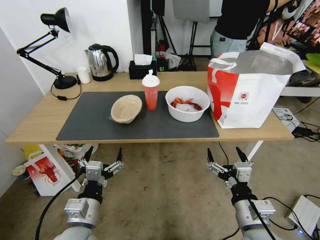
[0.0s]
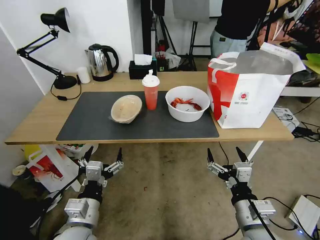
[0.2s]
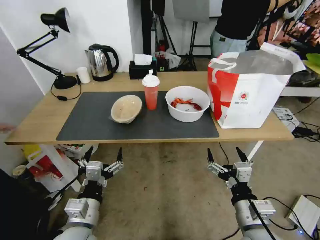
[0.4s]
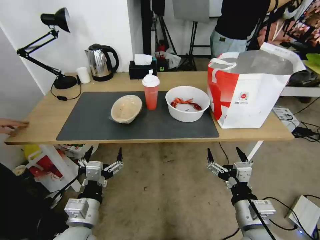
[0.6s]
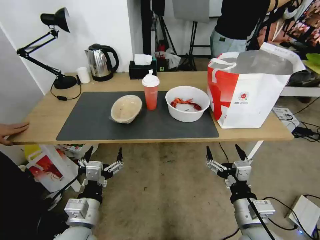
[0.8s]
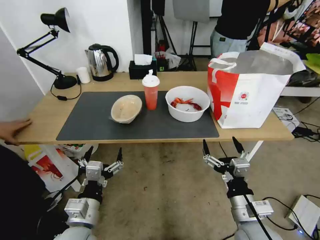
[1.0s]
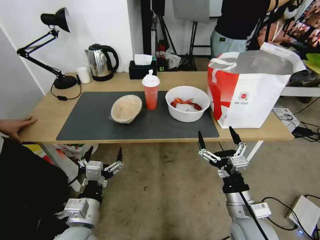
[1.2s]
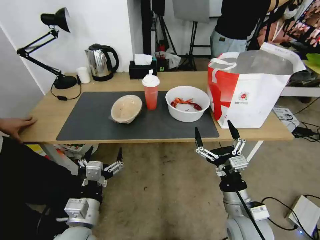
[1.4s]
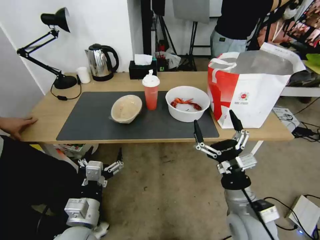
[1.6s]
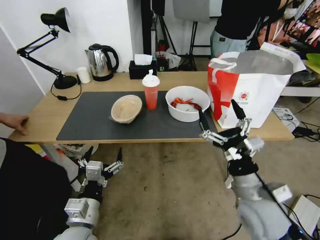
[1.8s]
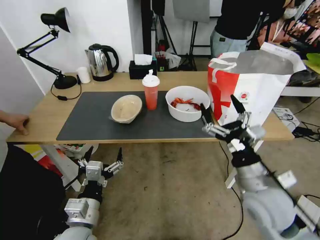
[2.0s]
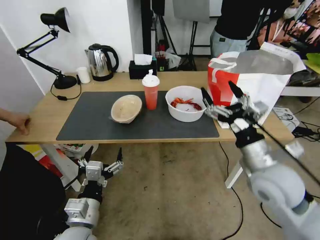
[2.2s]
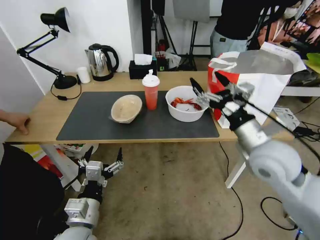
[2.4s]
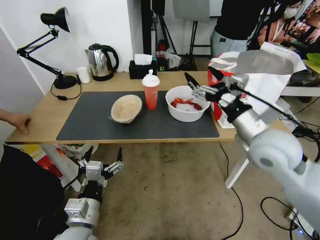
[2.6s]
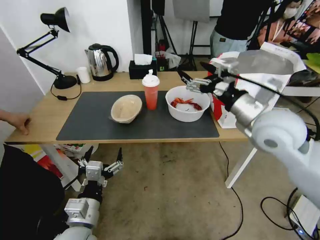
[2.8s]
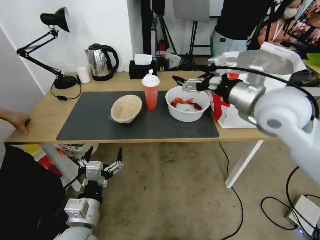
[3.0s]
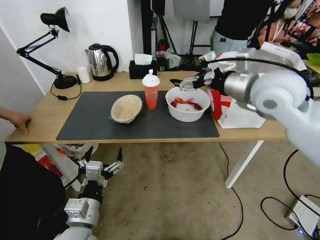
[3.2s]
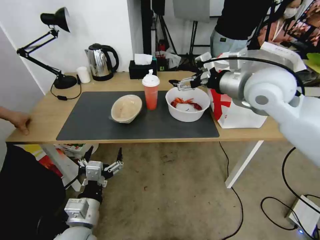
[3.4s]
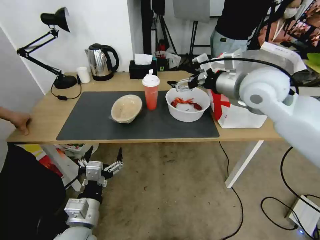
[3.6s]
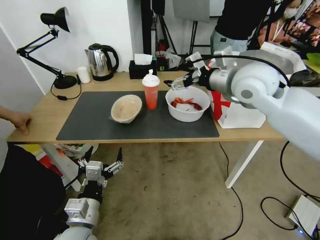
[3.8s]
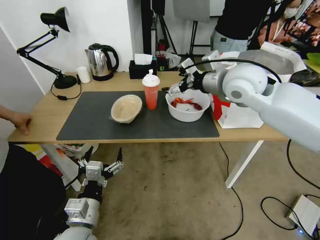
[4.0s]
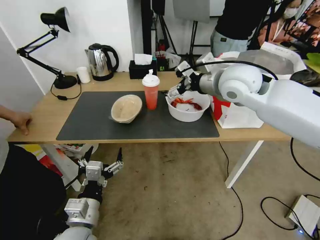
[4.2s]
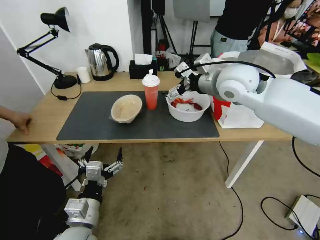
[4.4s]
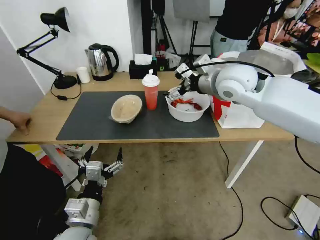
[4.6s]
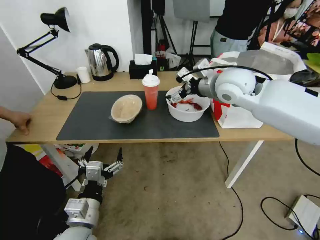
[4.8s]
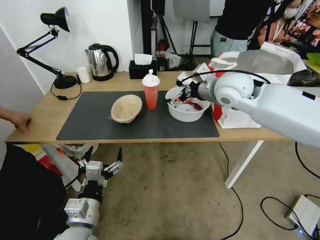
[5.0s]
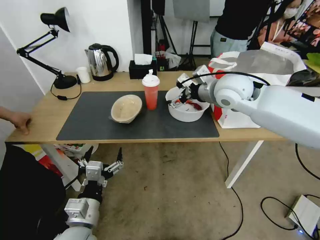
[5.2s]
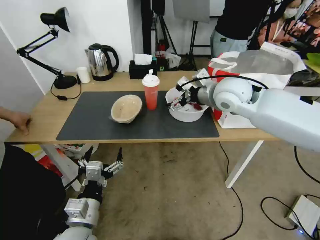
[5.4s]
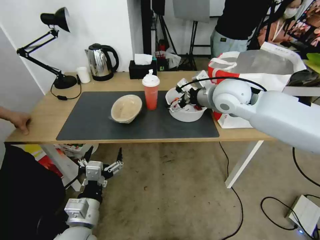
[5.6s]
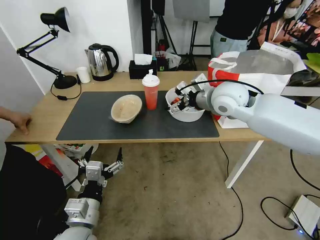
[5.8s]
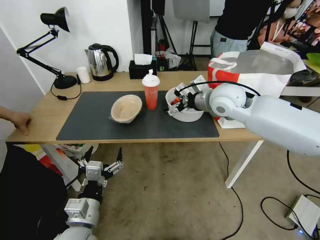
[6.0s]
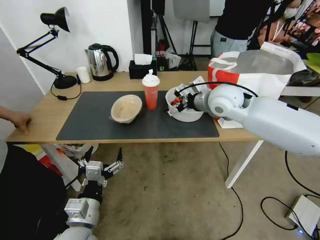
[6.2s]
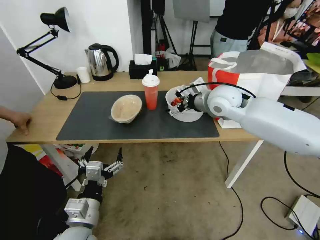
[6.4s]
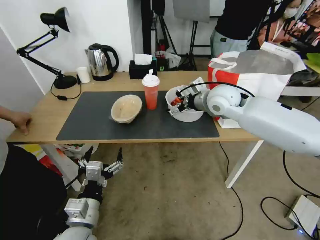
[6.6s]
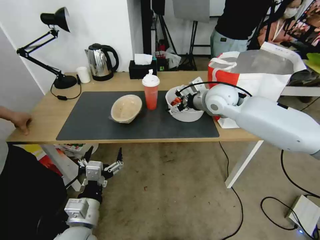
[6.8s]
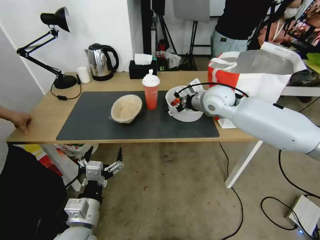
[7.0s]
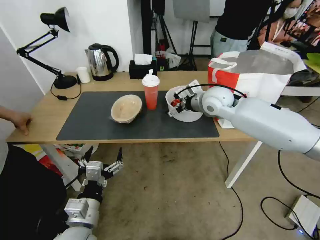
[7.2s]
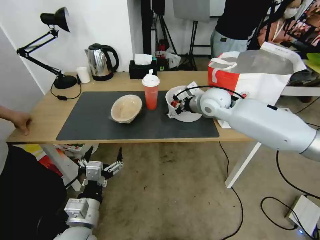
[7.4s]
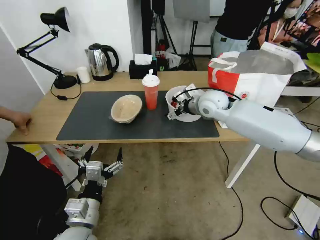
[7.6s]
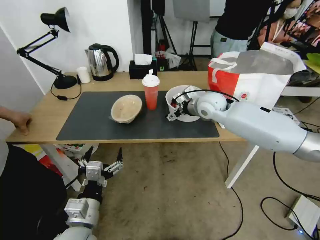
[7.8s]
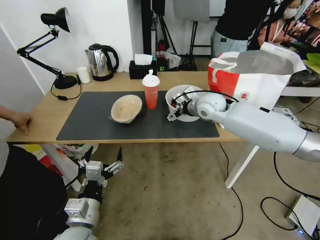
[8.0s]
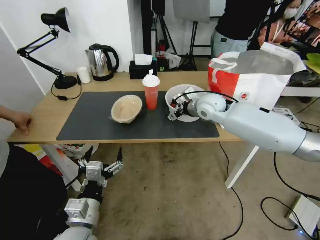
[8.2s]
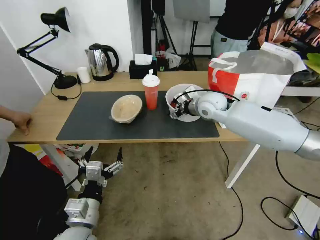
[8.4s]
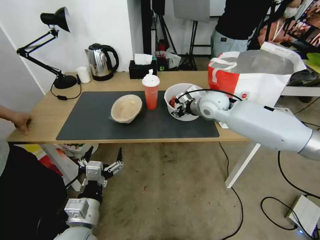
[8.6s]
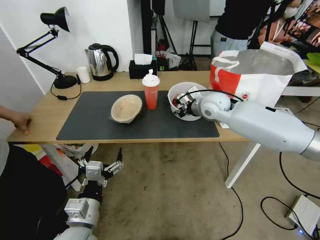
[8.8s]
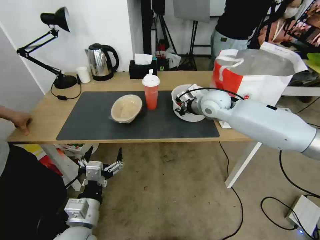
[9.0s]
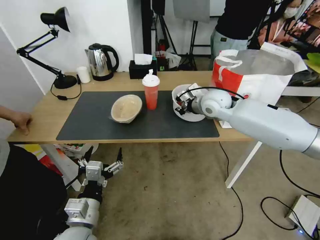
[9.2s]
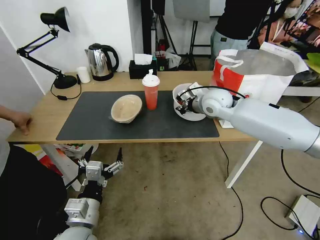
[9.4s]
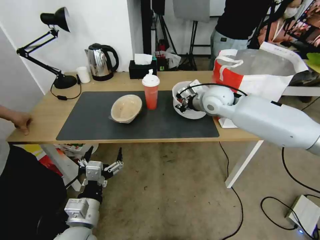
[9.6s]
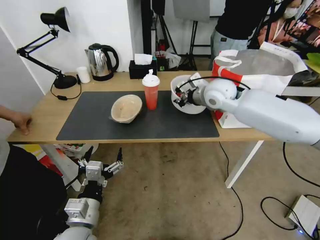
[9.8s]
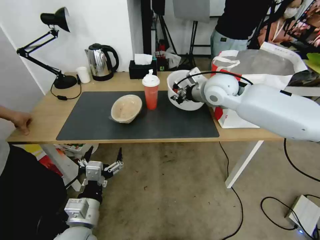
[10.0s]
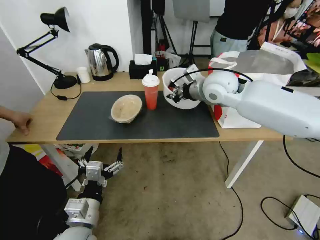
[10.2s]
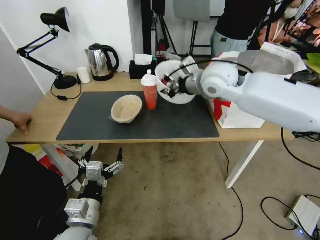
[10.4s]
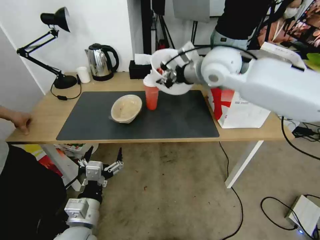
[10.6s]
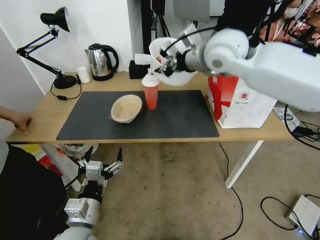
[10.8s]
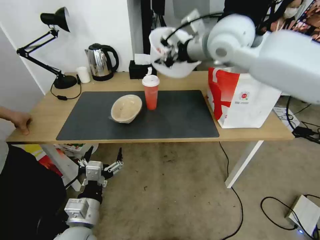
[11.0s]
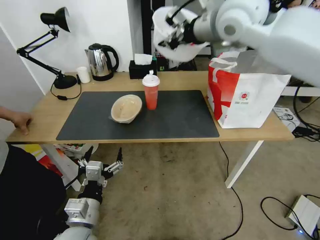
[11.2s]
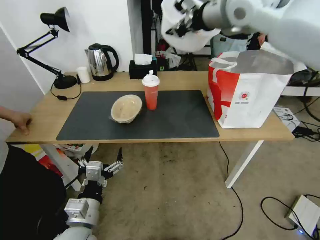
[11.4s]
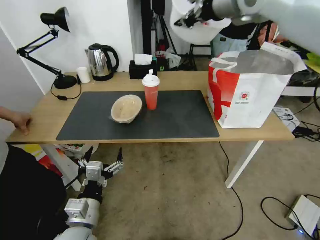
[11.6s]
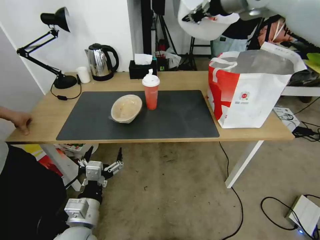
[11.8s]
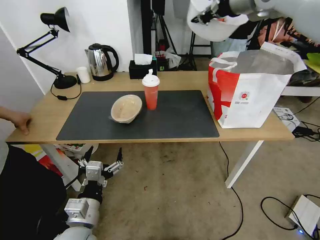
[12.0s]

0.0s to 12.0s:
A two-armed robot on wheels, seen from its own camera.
Task of the whole recording: Pick up the trash from the table and place it into the takeout bag.
1.6s to 3.0s: The right gripper moves upward and forward, approximately 30 cm.
3.0s to 4.4s: The right gripper goes approximately 10 cm forward and to the left.
4.4s to 6.0s: The right gripper moves downward, roughly 5 cm.
6.0s to 7.6s: The right gripper travels downward and forward by approximately 10 cm.
7.6s to 9.0s: The right gripper closes its fingers.
9.0s to 10.4s: The right gripper goes about 10 cm upward.
10.4s to 12.0s: The right gripper goes some 20 cm upward and to the right.

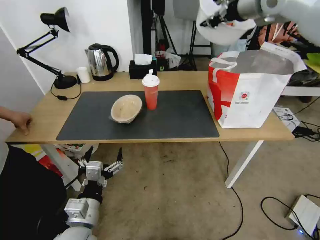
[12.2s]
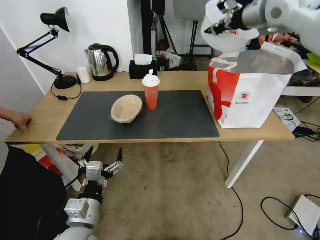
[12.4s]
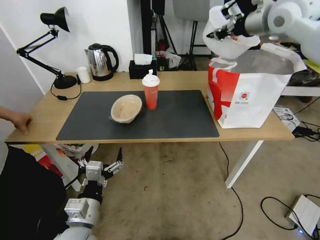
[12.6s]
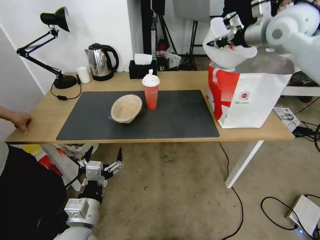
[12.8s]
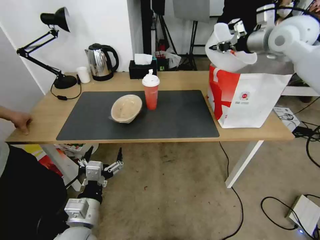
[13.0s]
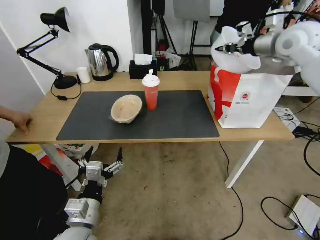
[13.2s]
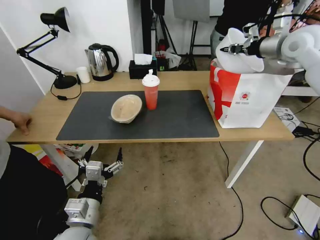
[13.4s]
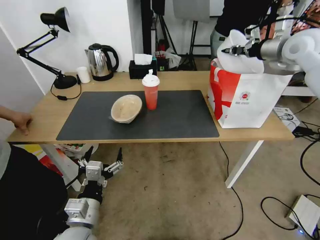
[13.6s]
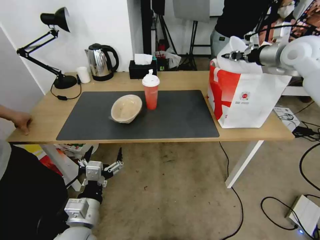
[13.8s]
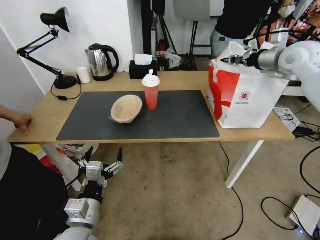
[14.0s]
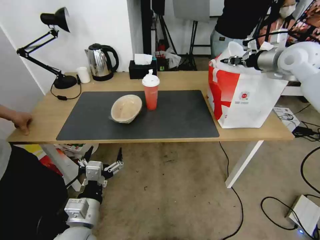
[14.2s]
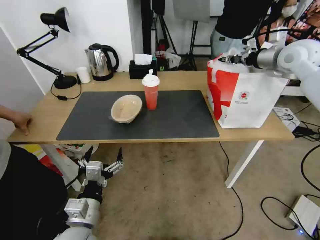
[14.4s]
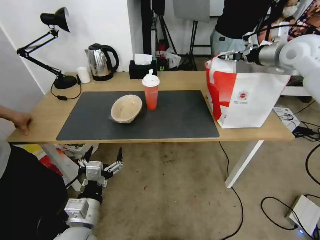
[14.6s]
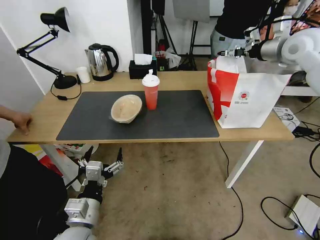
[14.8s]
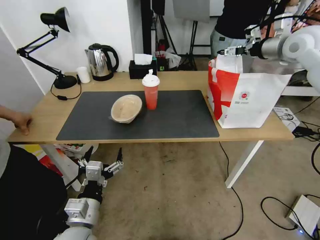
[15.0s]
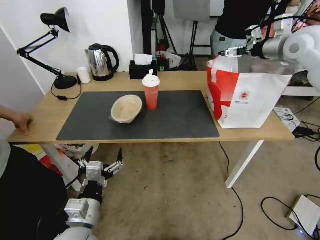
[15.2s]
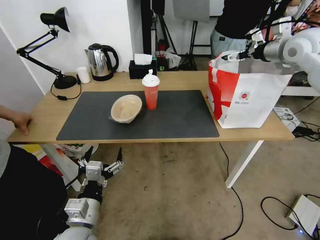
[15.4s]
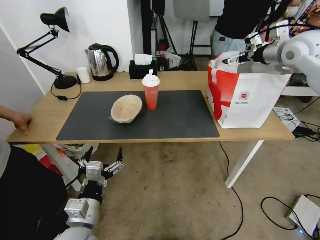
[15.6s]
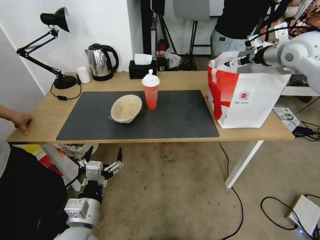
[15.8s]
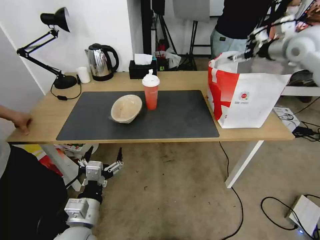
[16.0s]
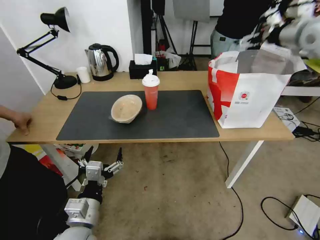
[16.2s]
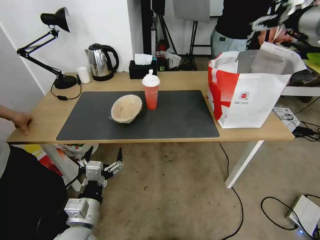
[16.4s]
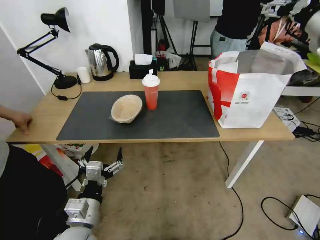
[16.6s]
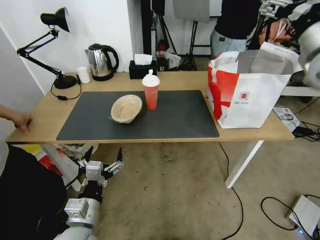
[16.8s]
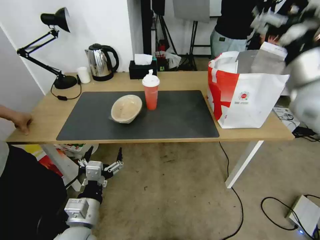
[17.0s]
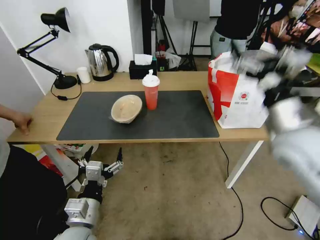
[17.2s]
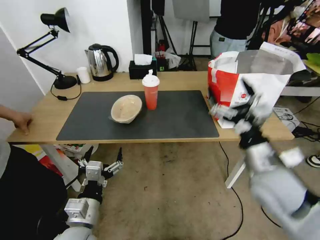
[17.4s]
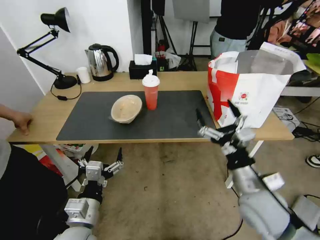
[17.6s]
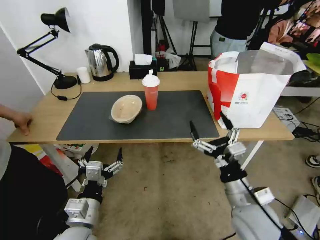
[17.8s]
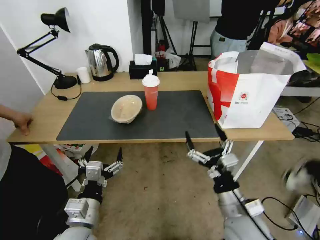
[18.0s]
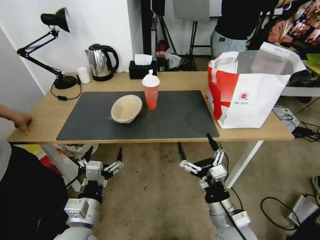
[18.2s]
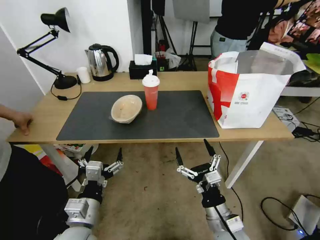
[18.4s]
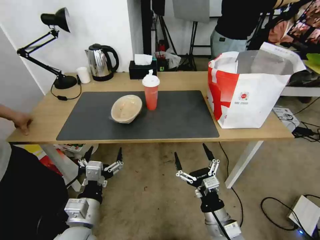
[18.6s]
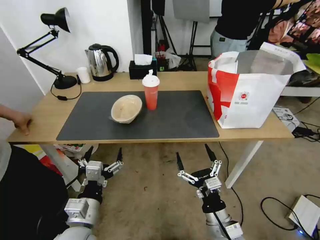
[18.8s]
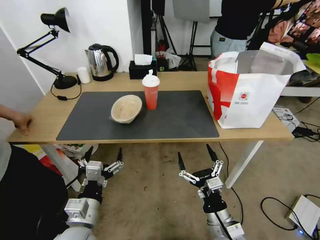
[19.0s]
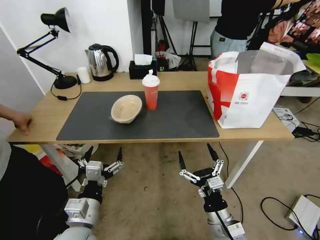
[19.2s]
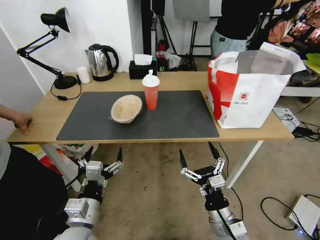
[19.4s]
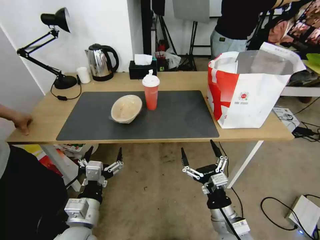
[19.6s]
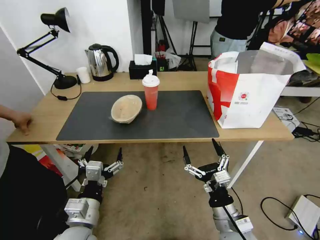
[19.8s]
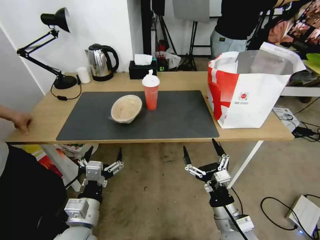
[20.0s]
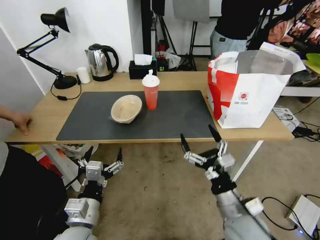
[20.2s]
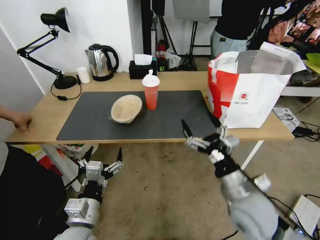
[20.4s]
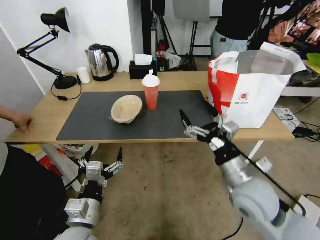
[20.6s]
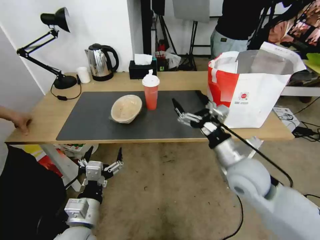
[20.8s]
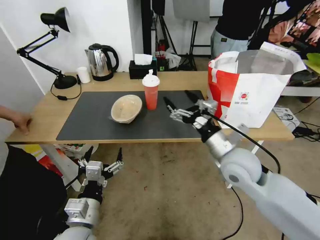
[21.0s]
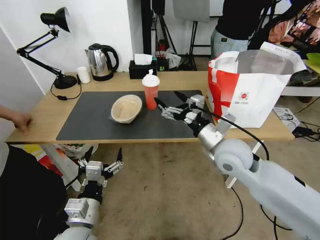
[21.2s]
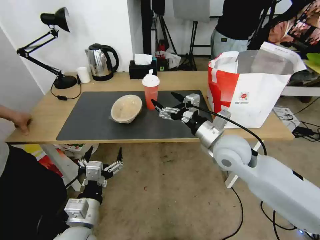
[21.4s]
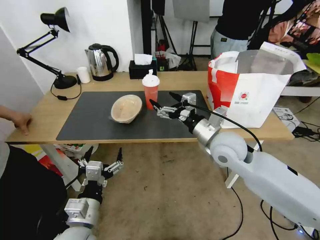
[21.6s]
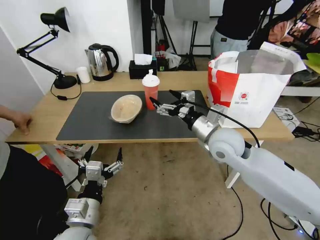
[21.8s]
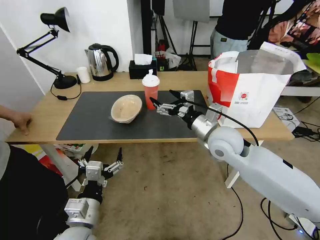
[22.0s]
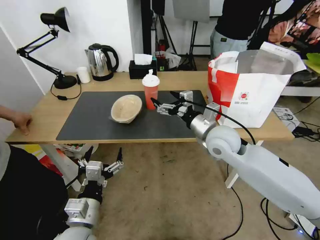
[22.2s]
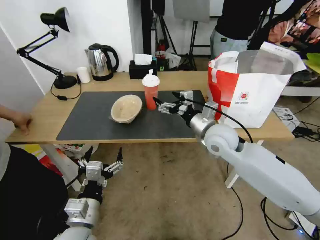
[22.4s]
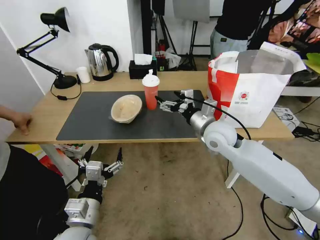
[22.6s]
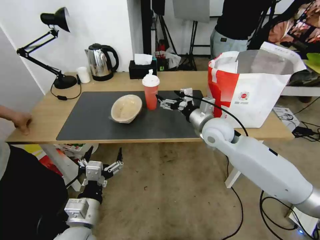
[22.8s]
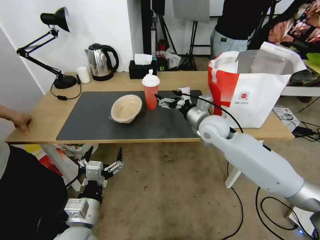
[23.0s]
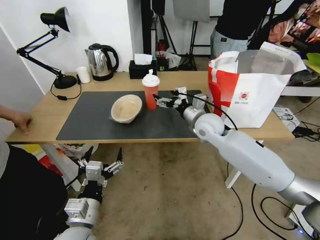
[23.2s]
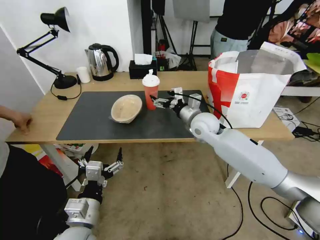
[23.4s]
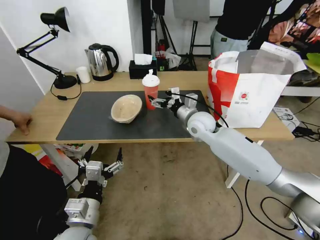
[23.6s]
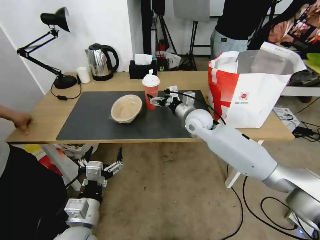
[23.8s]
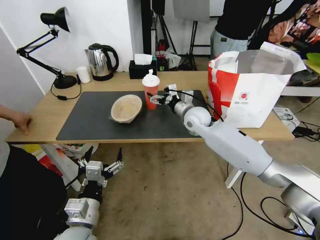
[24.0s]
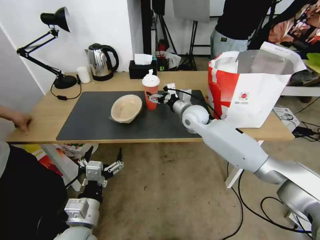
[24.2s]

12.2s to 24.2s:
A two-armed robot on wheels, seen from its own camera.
Task of the whole recording: Pick up the trash from the table and place it into the takeout bag.
12.2s to 13.8s: The right gripper shifts roughly 20 cm downward and to the right.
13.8s to 15.2s: The right gripper opens.
15.2s to 16.6s: The right gripper is displaced backward by about 10 cm.
16.6s to 18.2s: The right gripper heads downward, backward and to the left, covering about 50 cm.
18.2s to 19.8s: The grippers stay close to where they were, moving slightly.
19.8s to 21.2s: The right gripper is displaced forward and upward by about 25 cm.
21.2s to 22.6s: The right gripper moves forward, some 10 cm.
22.6s to 24.2s: The right gripper heads forward and to the left, covering approximately 15 cm.
